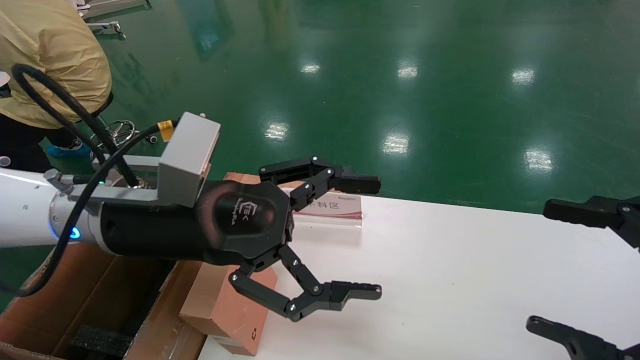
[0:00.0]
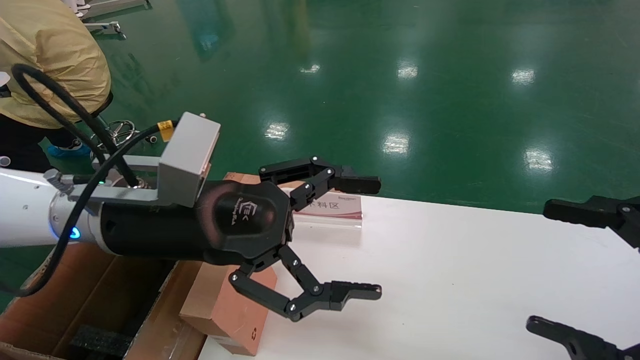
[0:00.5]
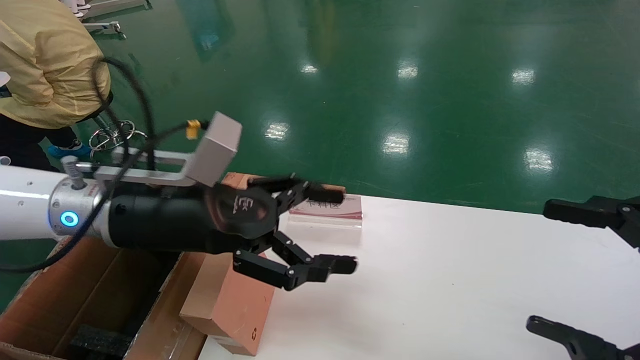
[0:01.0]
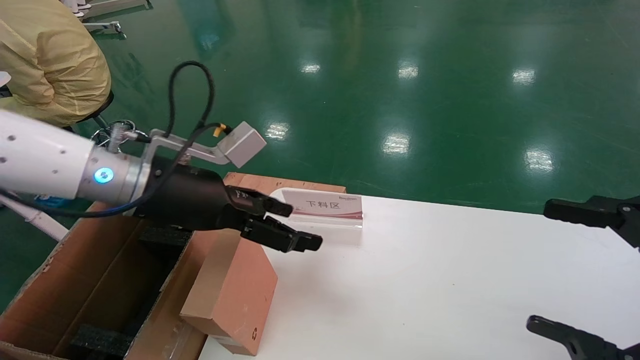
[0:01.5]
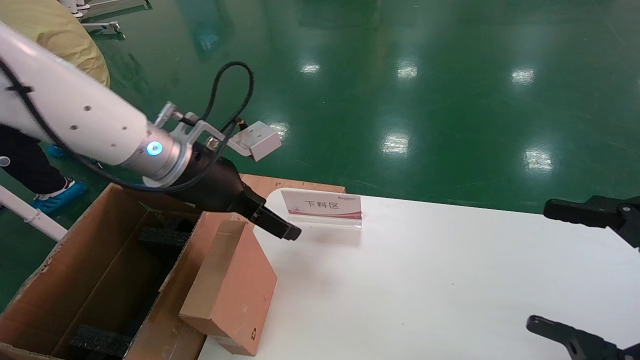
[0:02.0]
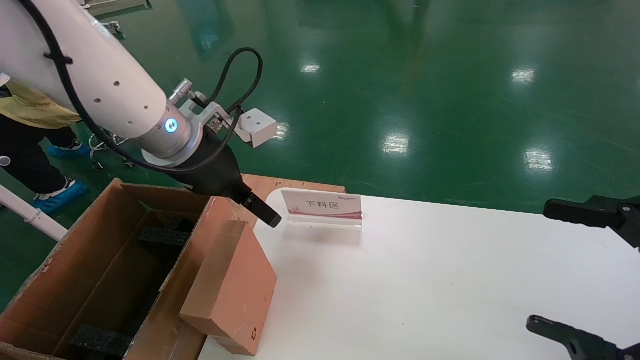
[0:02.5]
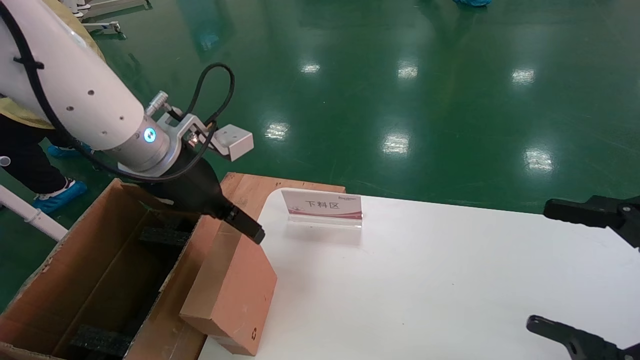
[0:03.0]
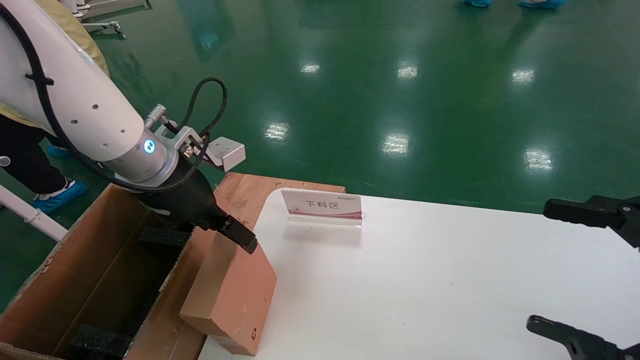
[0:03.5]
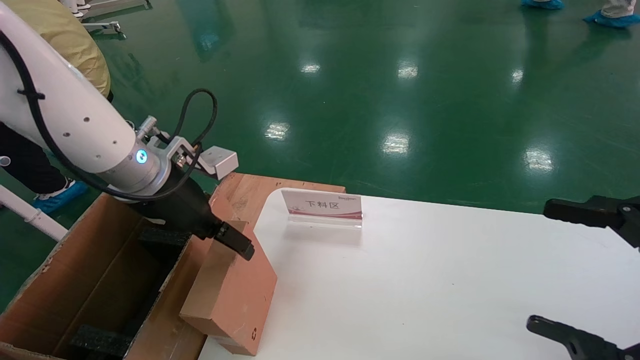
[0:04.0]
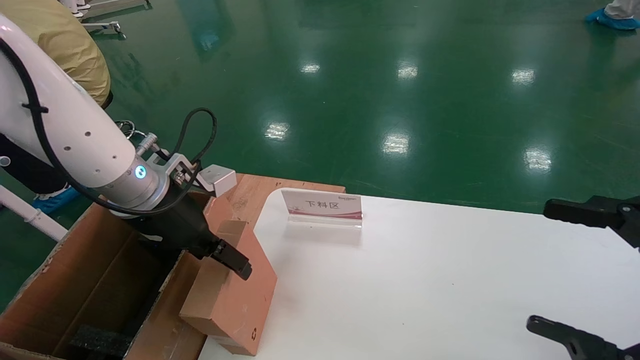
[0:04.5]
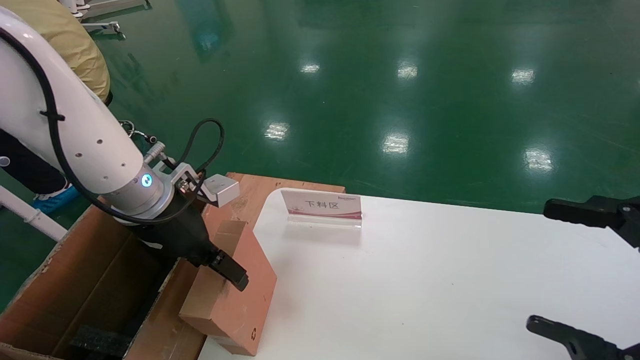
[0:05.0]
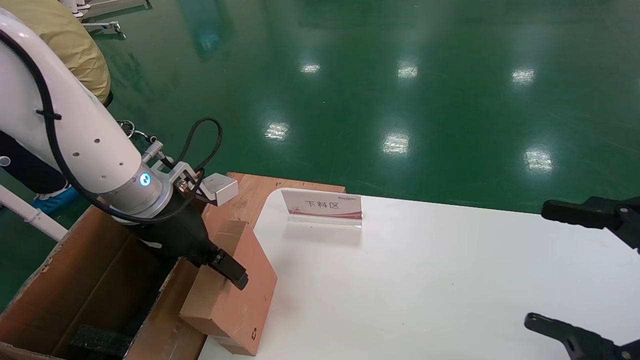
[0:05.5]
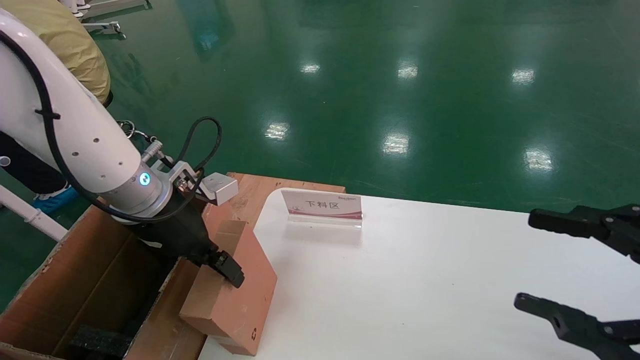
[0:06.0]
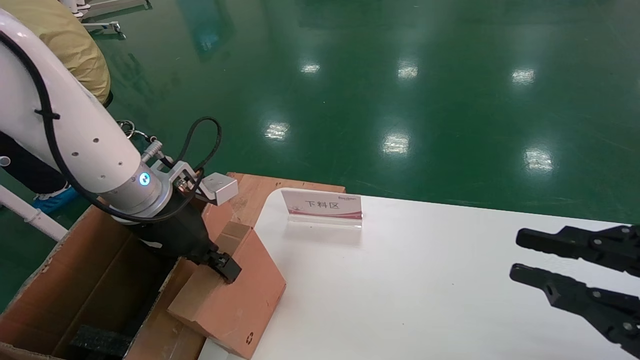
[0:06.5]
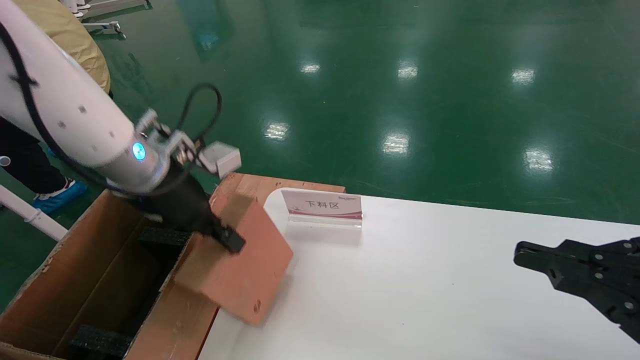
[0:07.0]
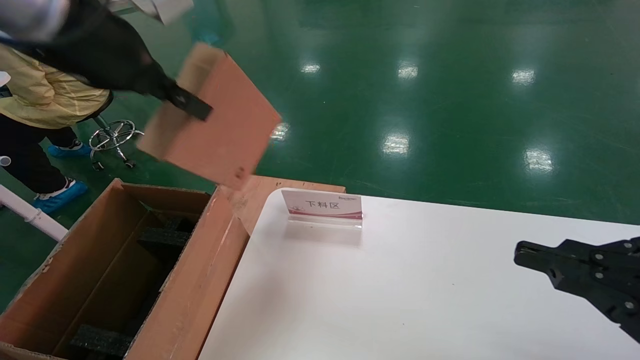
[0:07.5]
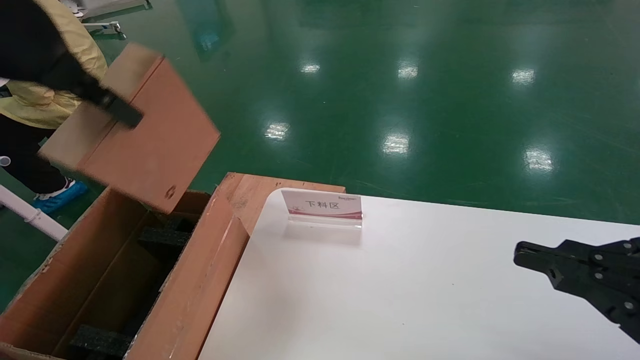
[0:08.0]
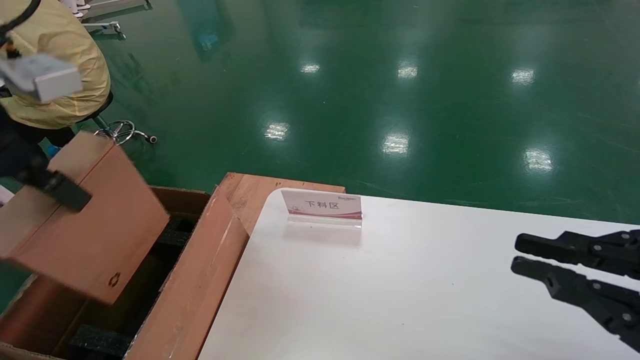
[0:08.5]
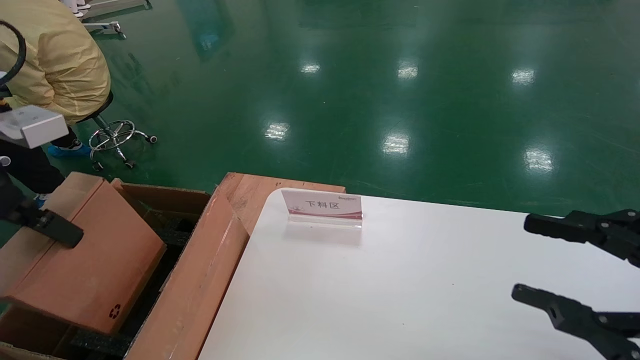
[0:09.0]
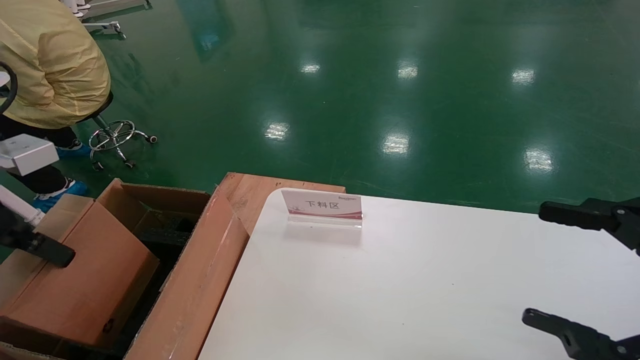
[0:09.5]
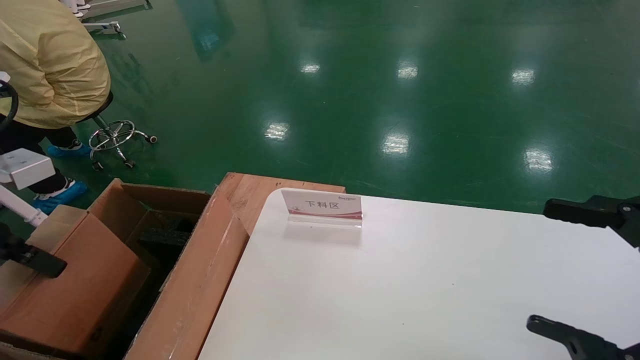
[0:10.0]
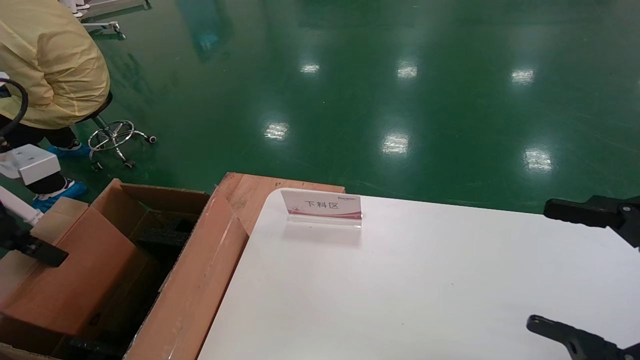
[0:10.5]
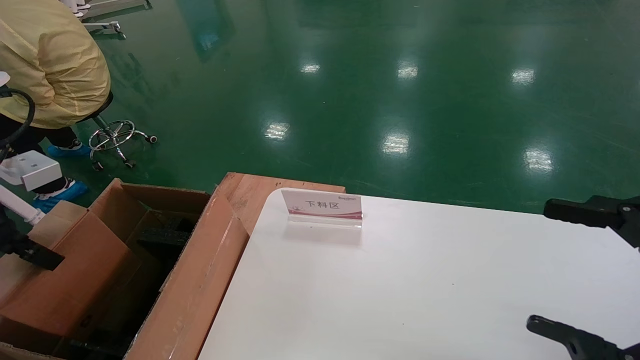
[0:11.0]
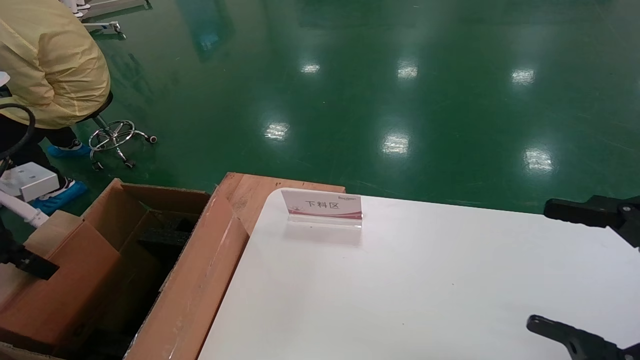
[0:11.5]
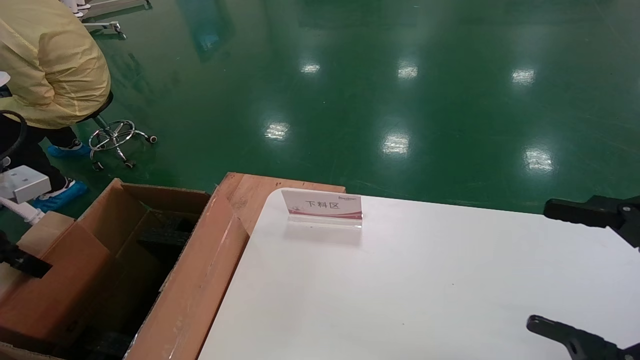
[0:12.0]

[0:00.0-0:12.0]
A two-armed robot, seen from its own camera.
Task of the whole recording: pick up the small cardboard box and load it into the large cardboard box.
Step, 0:01.0 to 0:06.5: Pick up the mouse and power cord box.
0:00.0 to 0:02.0: The left gripper is displaced forward by roughly 10 cm.
0:04.0 to 0:06.0: The grippers stay close to where they were, moving slightly.
0:06.0 to 0:08.0: The left gripper goes approximately 25 cm upward and backward, and closes its fingers, while the right gripper closes its fingers.
0:08.0 to 0:10.0: The left gripper is displaced downward and to the left by some 20 cm. Meanwhile the right gripper opens.
0:10.0 to 0:12.0: The left gripper heads to the left, covering about 5 cm.

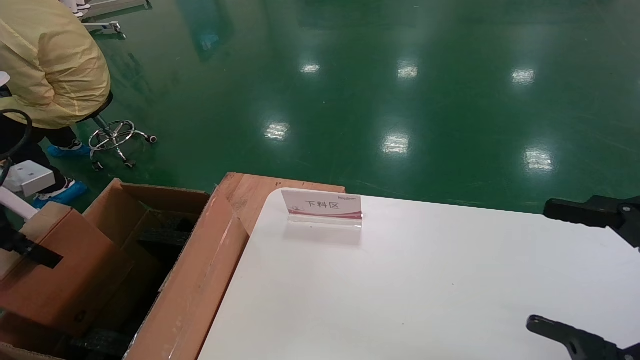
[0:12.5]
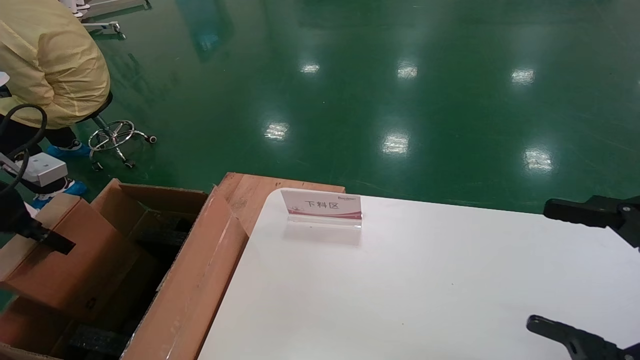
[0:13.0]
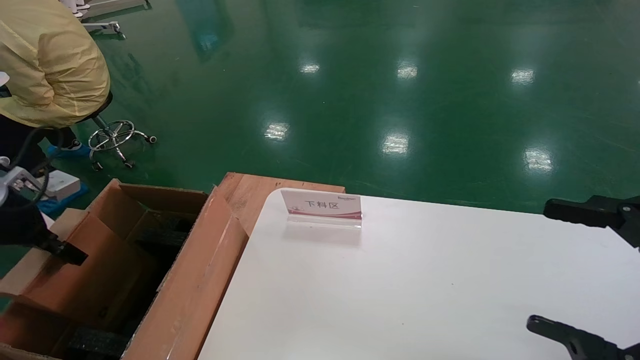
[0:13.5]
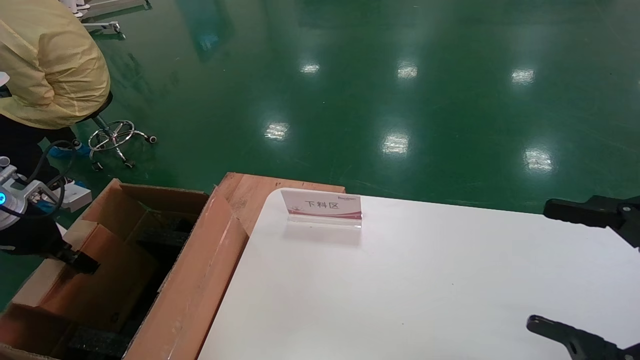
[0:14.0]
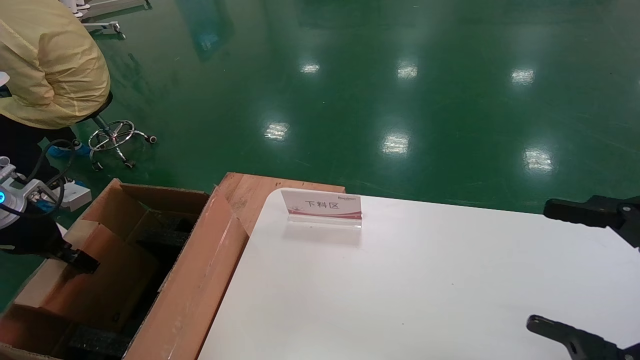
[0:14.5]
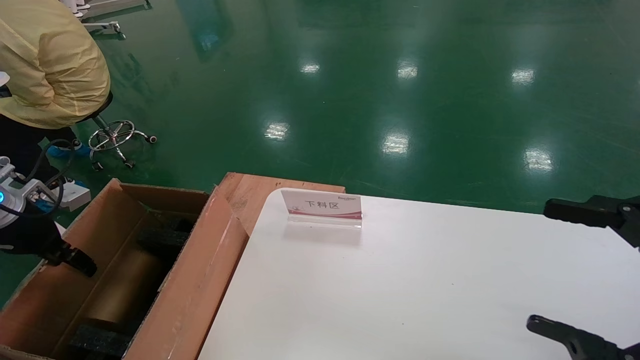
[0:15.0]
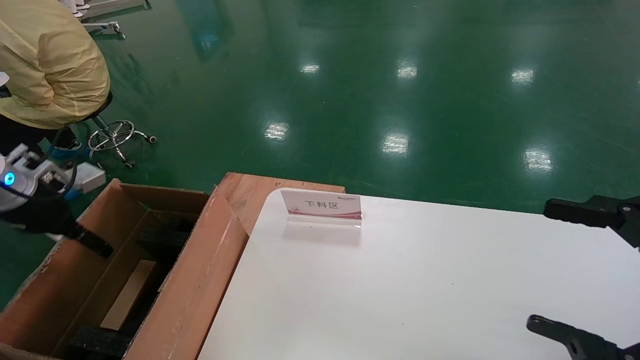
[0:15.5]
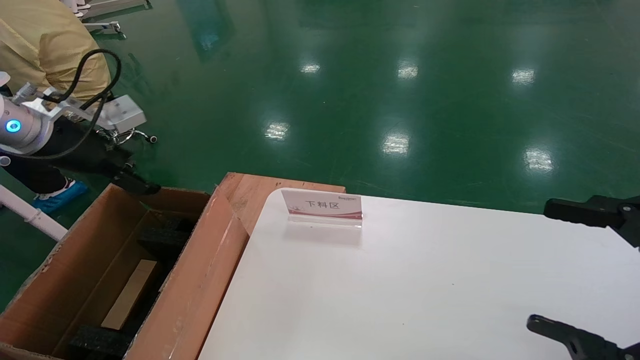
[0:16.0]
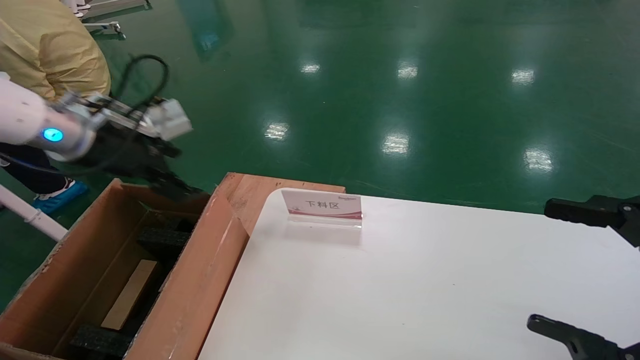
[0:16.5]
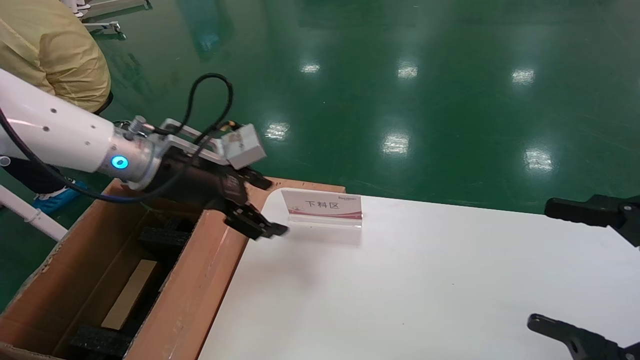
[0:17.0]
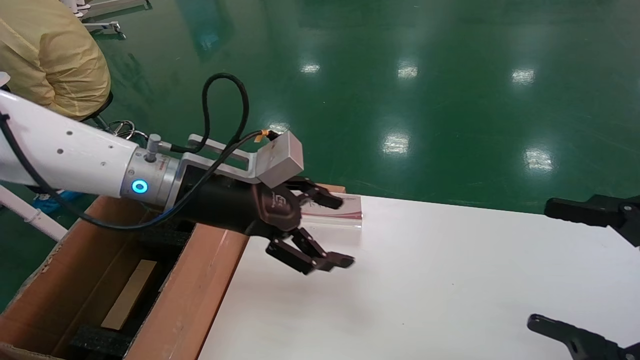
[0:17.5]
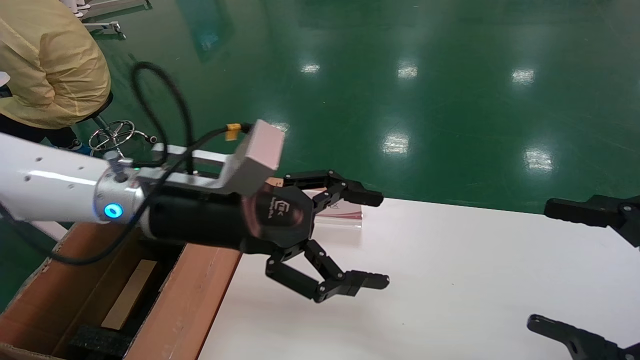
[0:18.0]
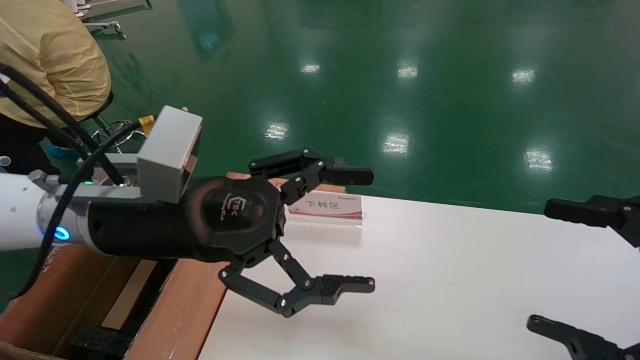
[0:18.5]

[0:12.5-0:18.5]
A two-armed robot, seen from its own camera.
Task of the whole recording: pick up the small cardboard box and load it into the large cardboard box.
Step, 0:12.5 to 0:14.5: Place the mouse and power cord box into the case.
0:12.5 to 0:14.5: The left gripper heads downward and forward, covering roughly 10 cm.
0:14.5 to 0:16.5: The left gripper shifts roughly 20 cm to the right and upward, and opens up.
0:16.5 to 0:18.5: The left gripper is displaced to the right and backward by approximately 20 cm.
